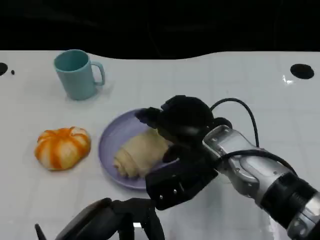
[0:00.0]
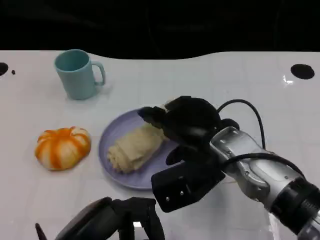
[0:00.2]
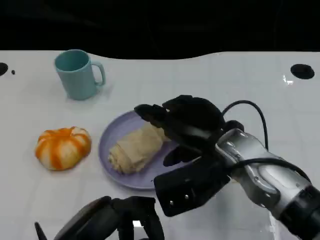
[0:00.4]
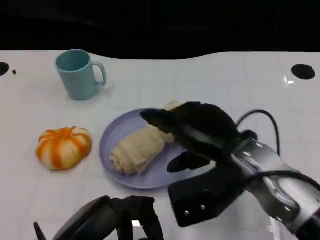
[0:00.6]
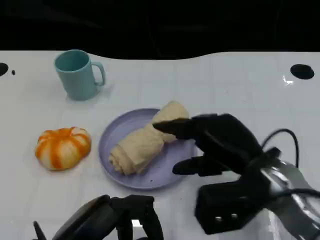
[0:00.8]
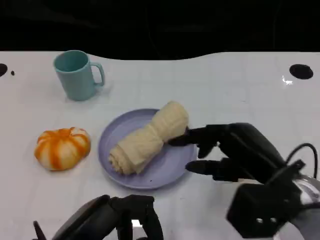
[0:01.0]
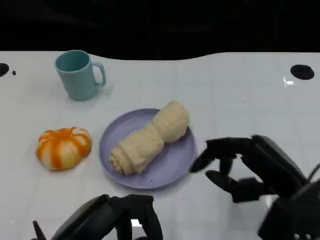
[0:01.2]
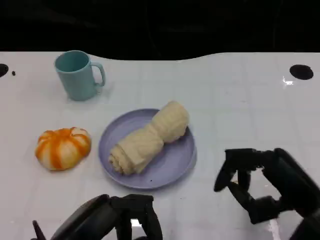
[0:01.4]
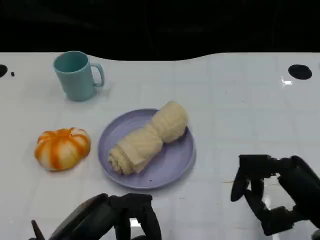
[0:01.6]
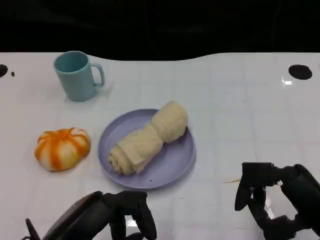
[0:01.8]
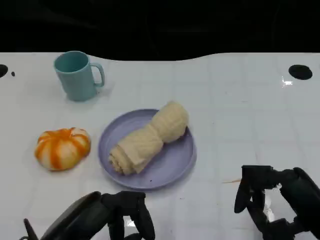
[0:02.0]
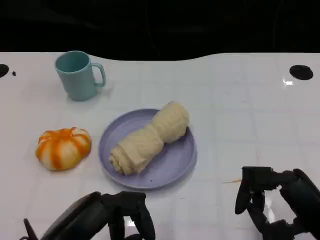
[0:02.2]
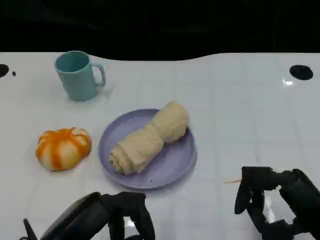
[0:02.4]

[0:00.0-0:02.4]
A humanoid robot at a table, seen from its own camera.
Task of the whole recording: Grasp the towel on the left side of the plate with the left hand and place it into the plate.
0:00.0 to 0:01.2: The right hand moves to the right and backward, about 15 cm.
0:01.2 to 0:02.4: The right hand changes place by some 5 cm.

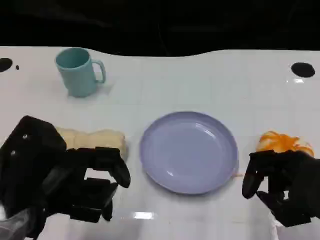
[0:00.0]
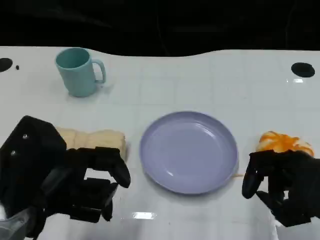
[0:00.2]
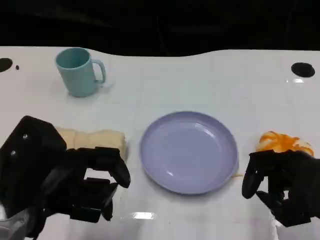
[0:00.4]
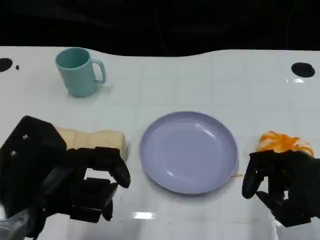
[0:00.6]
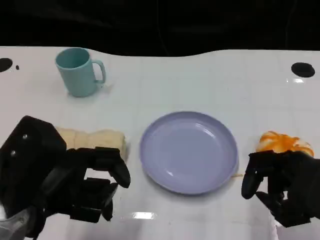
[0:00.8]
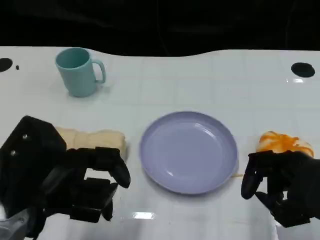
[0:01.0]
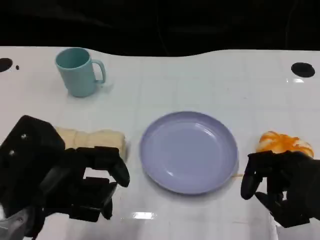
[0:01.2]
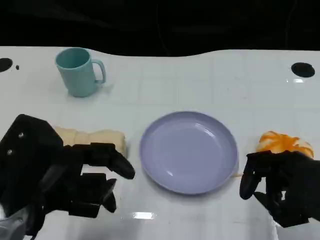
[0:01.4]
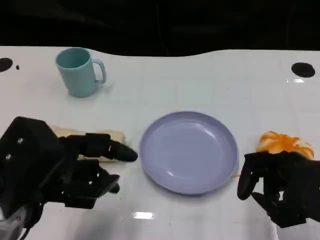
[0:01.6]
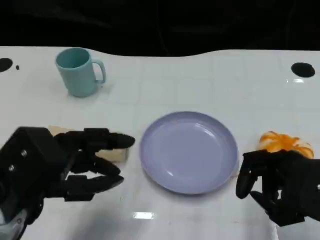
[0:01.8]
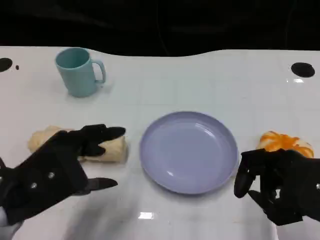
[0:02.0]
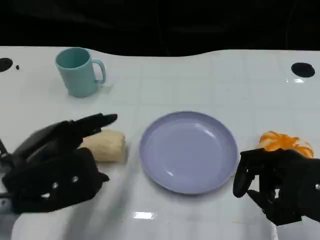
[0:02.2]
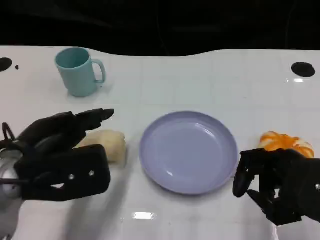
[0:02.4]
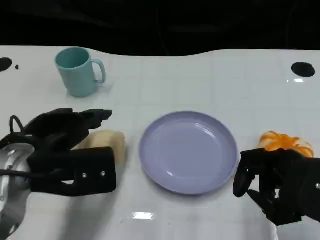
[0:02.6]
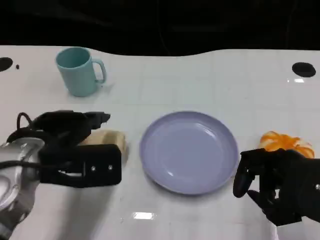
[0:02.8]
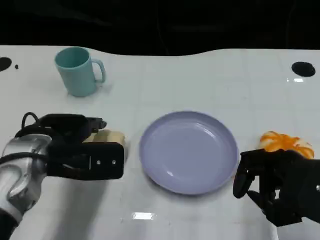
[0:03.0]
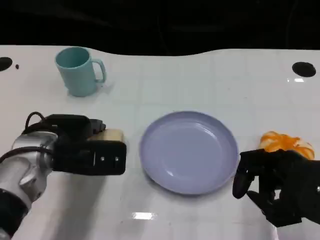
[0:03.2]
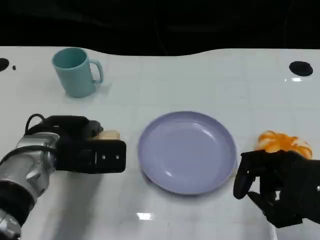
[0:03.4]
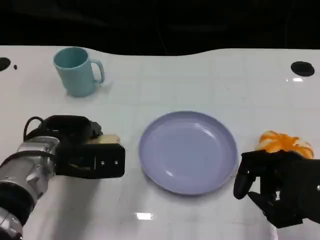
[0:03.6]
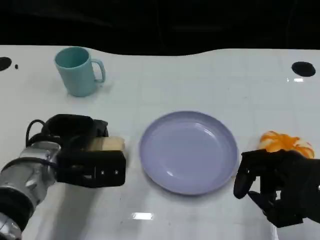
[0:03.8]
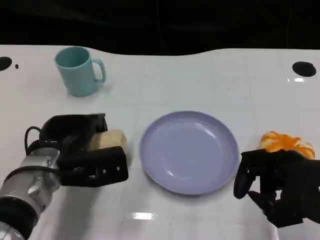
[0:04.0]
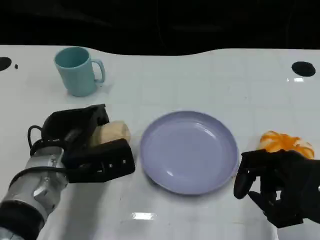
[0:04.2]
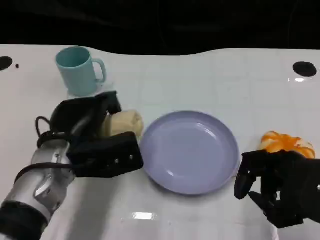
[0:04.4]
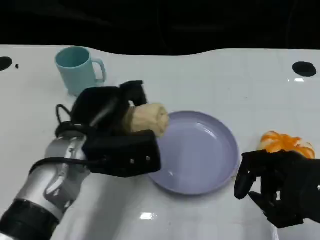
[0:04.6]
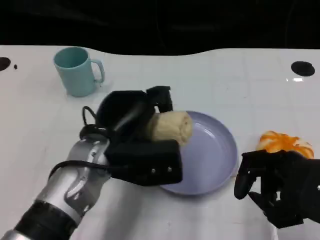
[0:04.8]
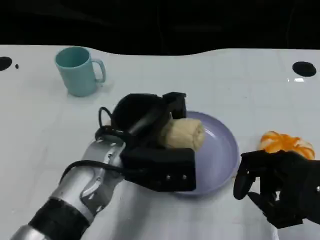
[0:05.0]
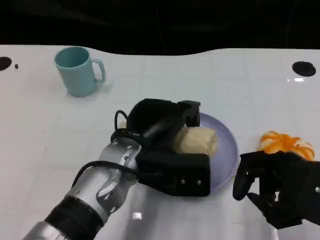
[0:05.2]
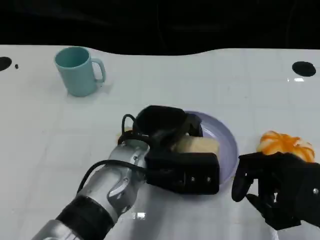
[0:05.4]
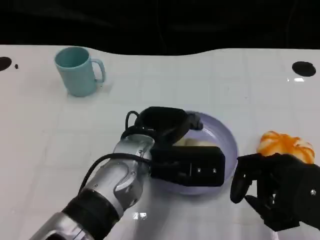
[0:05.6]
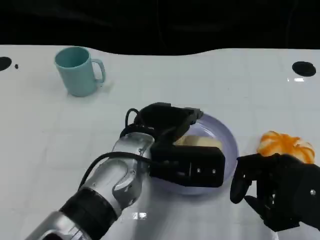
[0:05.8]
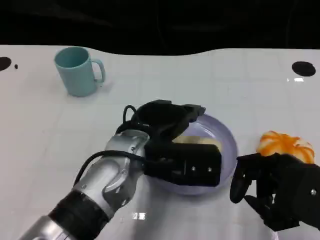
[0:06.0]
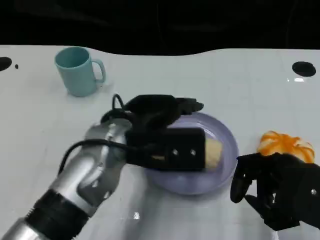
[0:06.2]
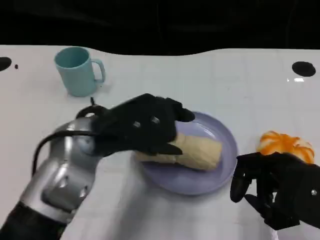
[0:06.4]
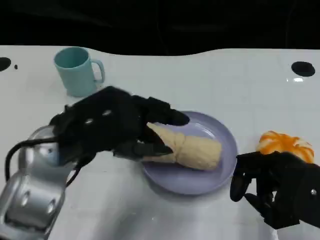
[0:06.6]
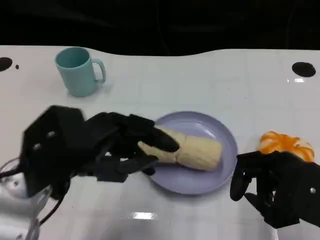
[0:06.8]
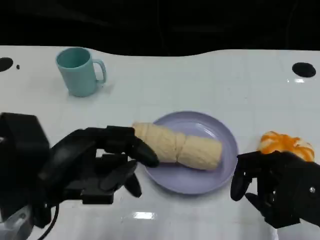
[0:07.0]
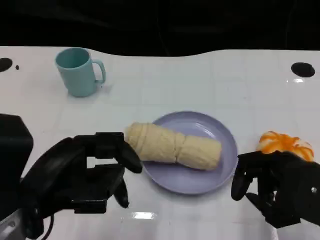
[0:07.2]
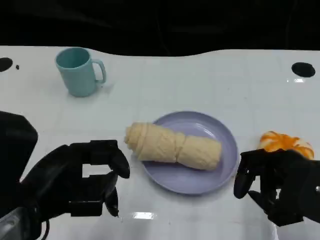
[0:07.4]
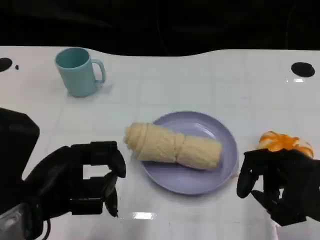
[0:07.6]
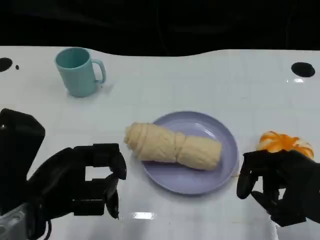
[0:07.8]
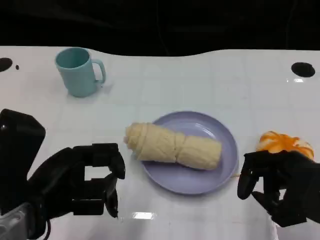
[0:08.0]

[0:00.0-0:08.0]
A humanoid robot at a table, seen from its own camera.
Task of the whole recording: Grasp the towel on the left side of the plate with the left hand and place it into the plate.
0:00.0 to 0:01.6: The hands make only small movements.
0:01.6 to 0:03.2: The left hand travels forward by roughly 10 cm.
0:03.2 to 0:04.8: The left hand is displaced to the right by approximately 10 cm.
0:04.8 to 0:06.4: The left hand goes about 5 cm upward, and goes to the right and returns, some 5 cm each way.
0:06.4 to 0:08.0: The left hand heads to the left and backward, covering some 10 cm.
